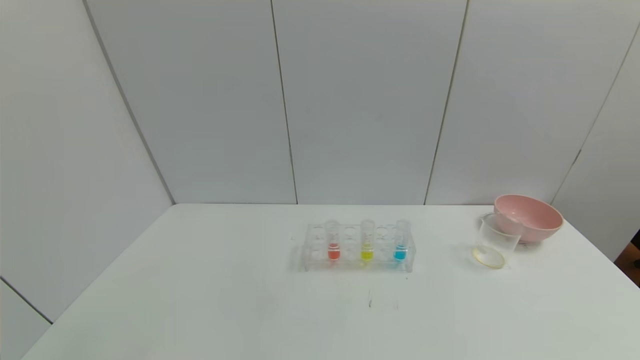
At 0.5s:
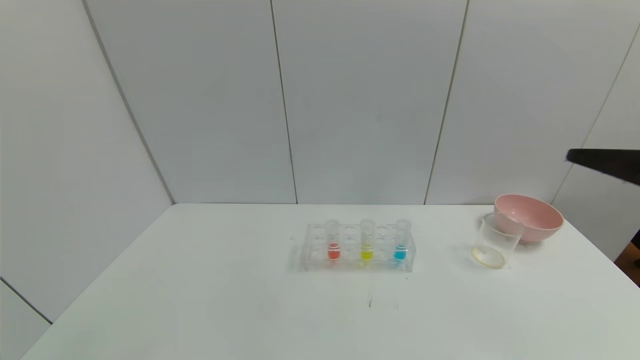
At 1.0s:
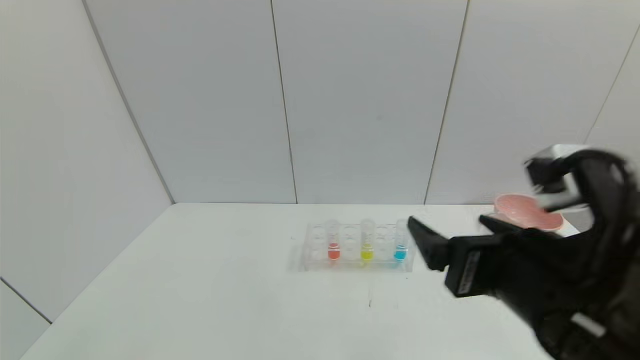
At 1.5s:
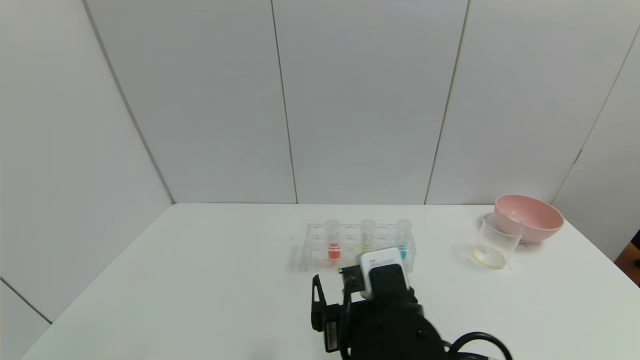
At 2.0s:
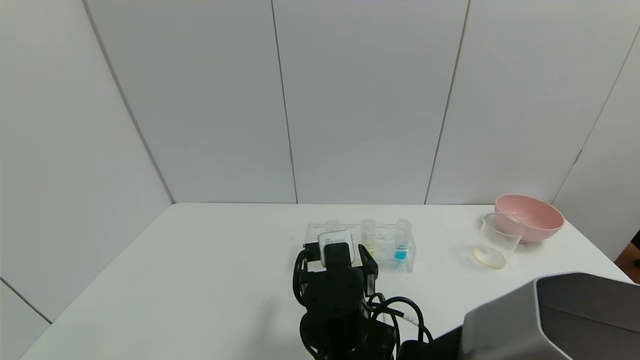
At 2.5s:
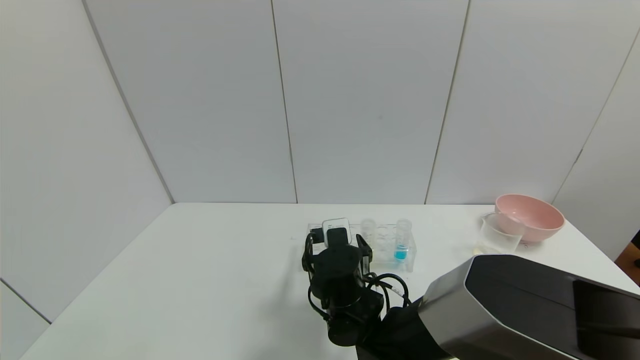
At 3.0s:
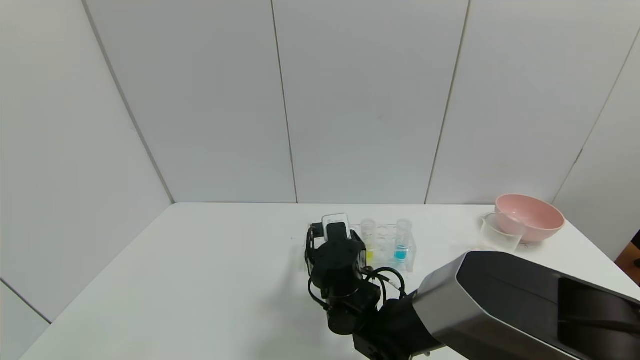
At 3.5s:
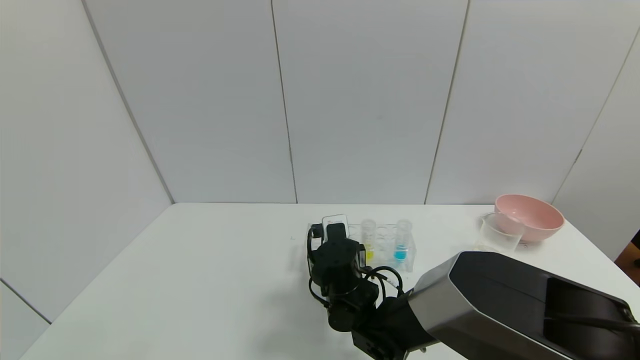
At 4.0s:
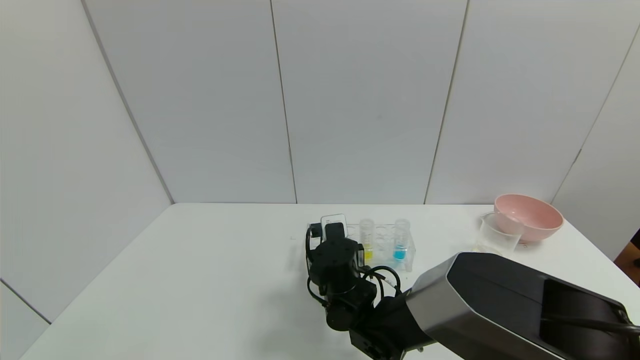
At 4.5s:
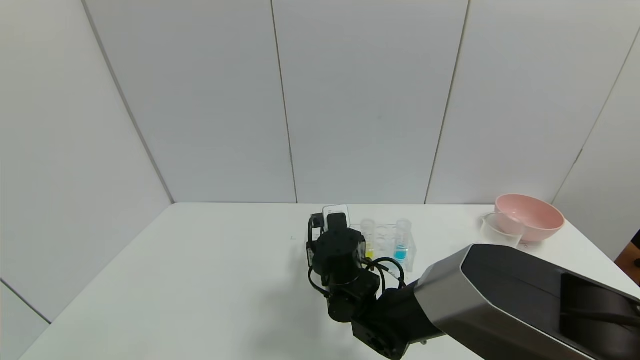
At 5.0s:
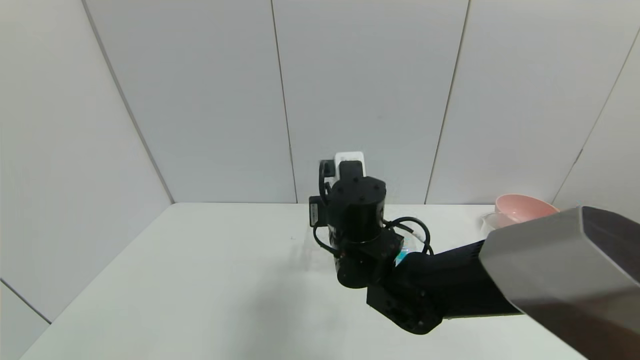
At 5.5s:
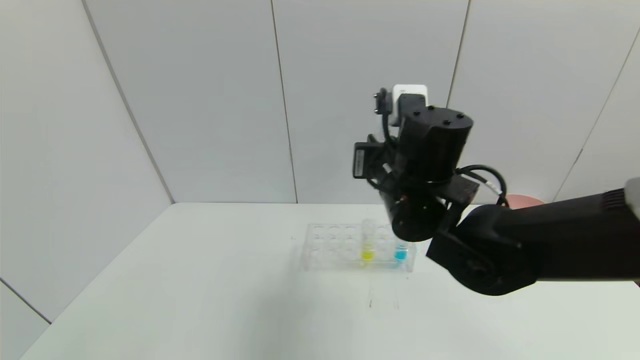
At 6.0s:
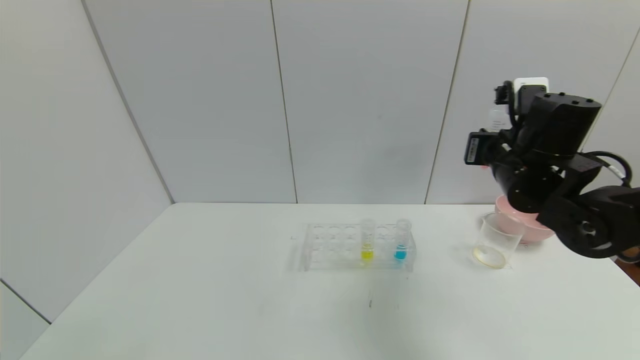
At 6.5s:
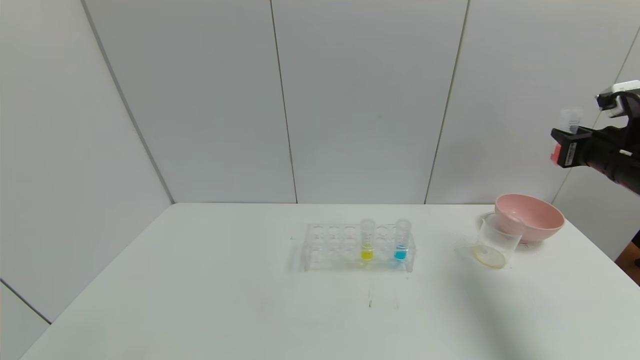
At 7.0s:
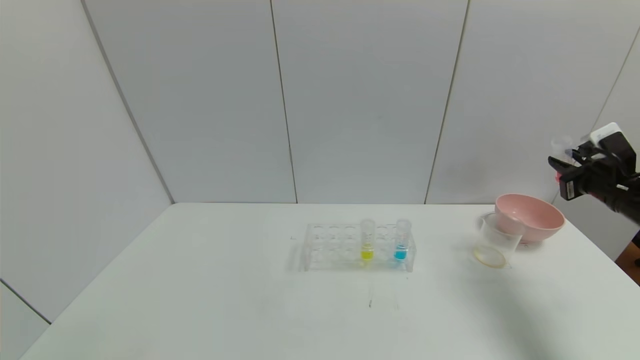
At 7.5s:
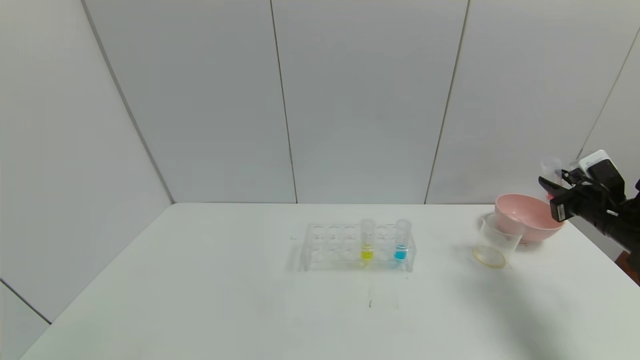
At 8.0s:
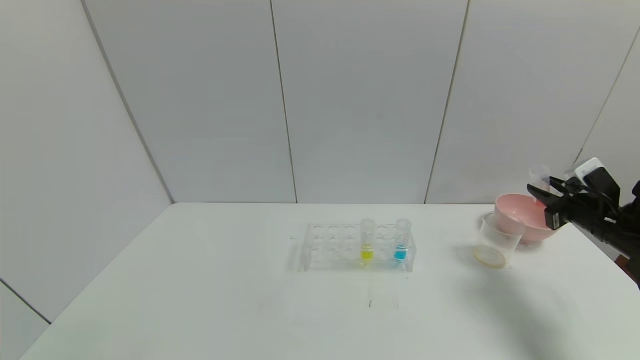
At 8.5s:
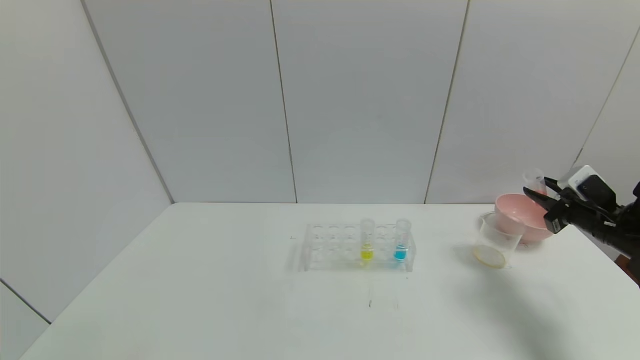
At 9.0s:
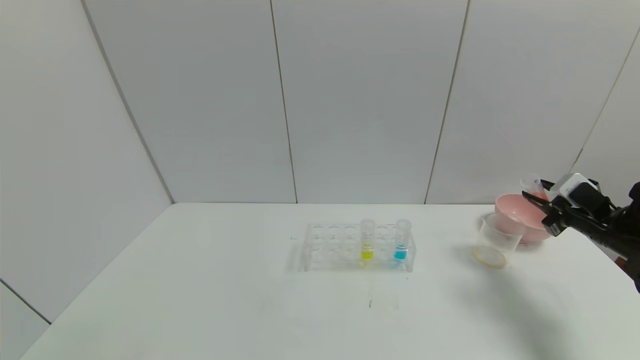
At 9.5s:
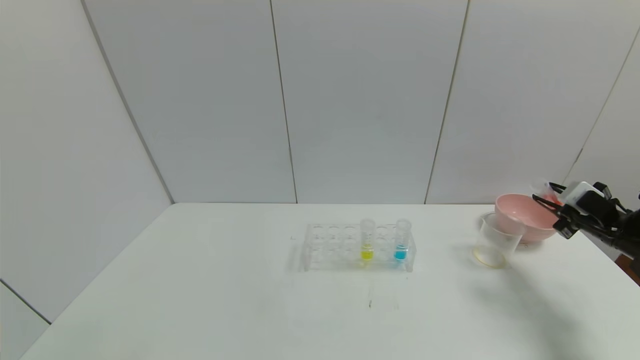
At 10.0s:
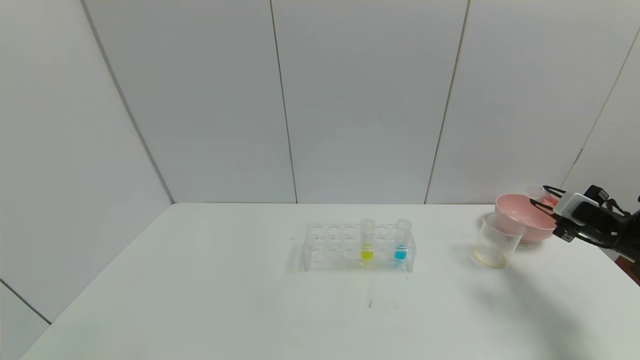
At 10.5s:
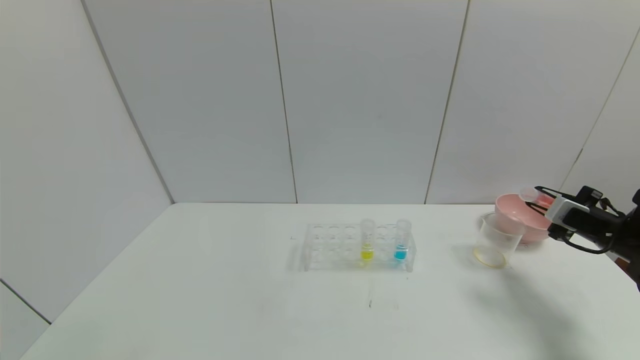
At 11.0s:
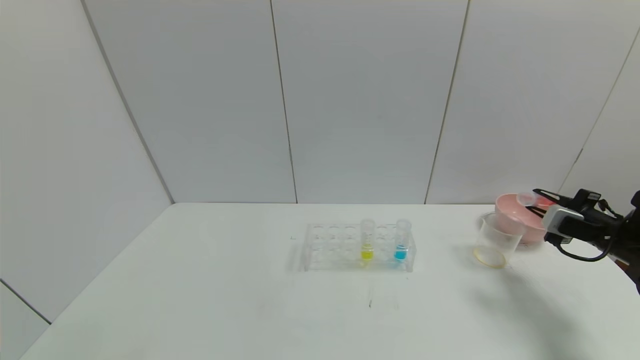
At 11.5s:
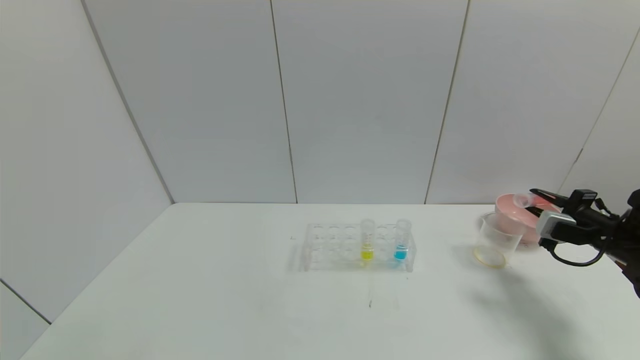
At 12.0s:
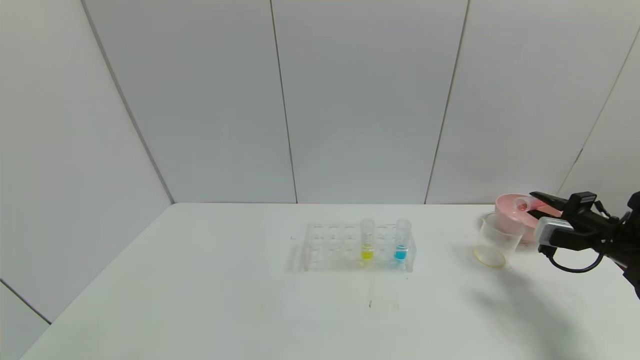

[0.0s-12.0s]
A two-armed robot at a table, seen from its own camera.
Task of the whole recording: pick up the test tube with yellow pigment and the test tube with red pigment by grippers and pour them into the beaker.
Step, 0.0s to 3.0s: Grasp the red reagent with the right gripper.
0.0s to 2.0s: The right gripper shifts approximately 50 cm to the left, downward and forward.
2.0s to 4.0s: The right gripper goes approximately 10 cm forward, and closes up.
4.0s to 6.0s: The right gripper moves to the right and upward, about 30 cm.
6.0s to 8.0s: The right gripper moves to the right and downward, some 20 cm.

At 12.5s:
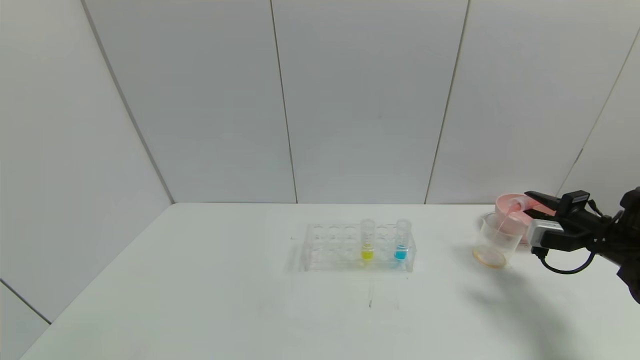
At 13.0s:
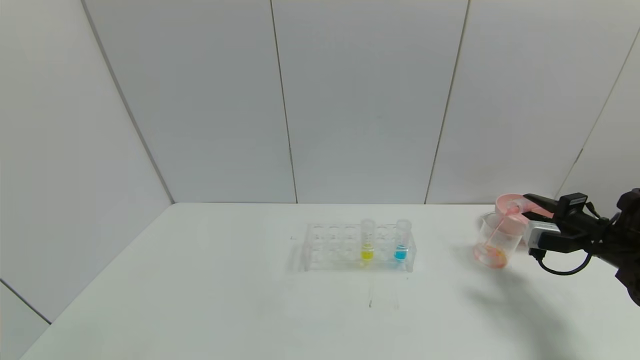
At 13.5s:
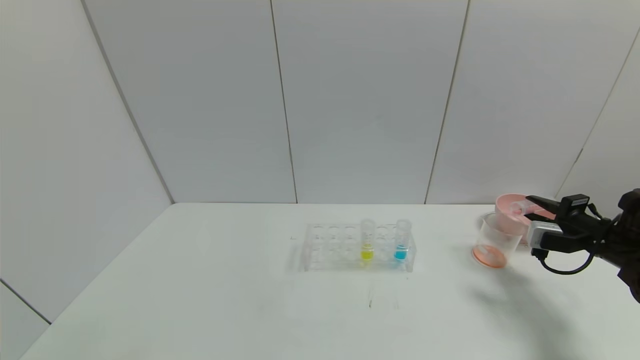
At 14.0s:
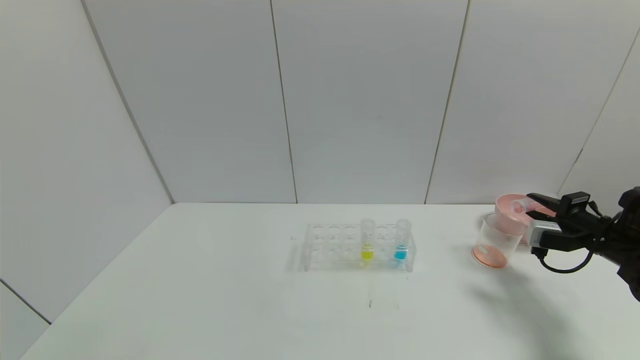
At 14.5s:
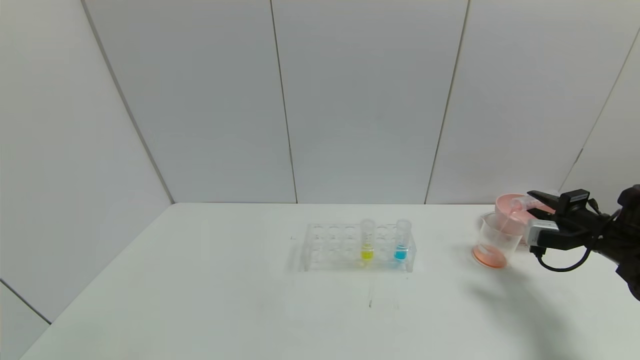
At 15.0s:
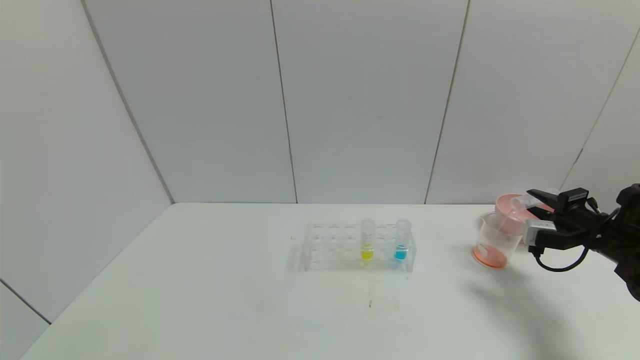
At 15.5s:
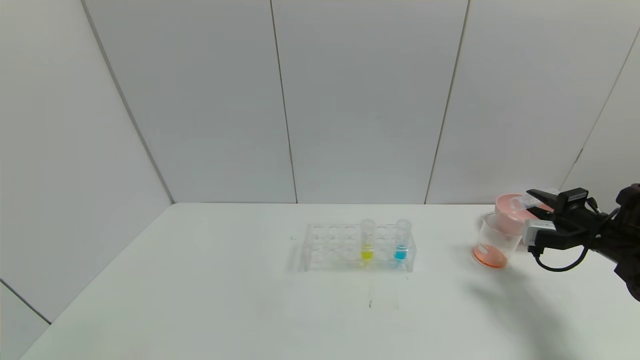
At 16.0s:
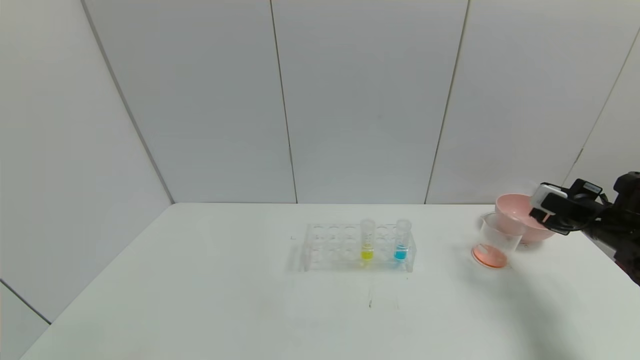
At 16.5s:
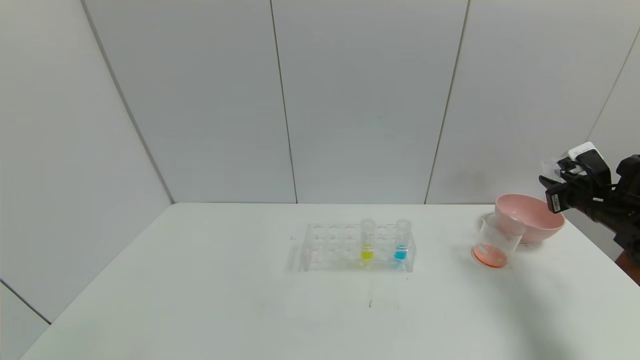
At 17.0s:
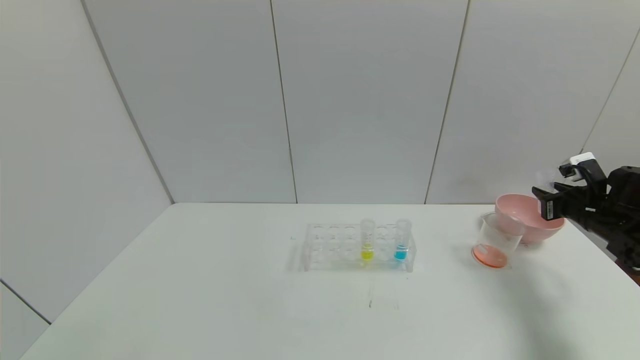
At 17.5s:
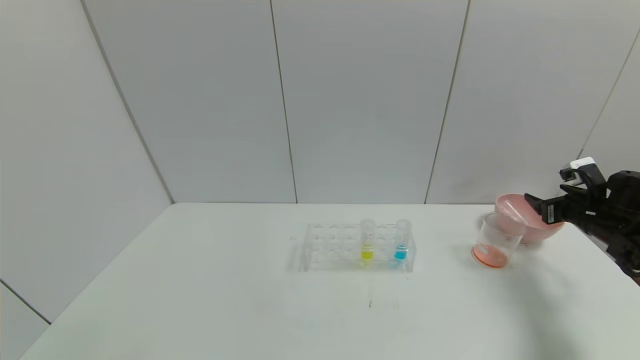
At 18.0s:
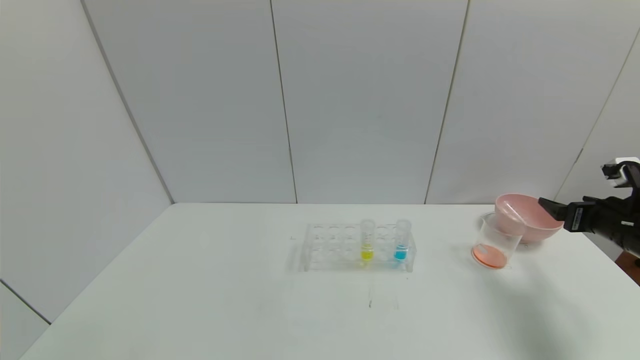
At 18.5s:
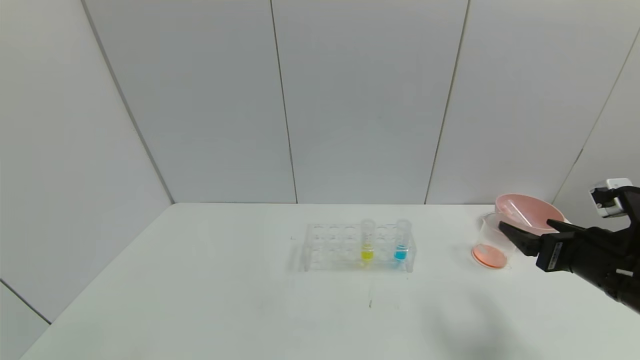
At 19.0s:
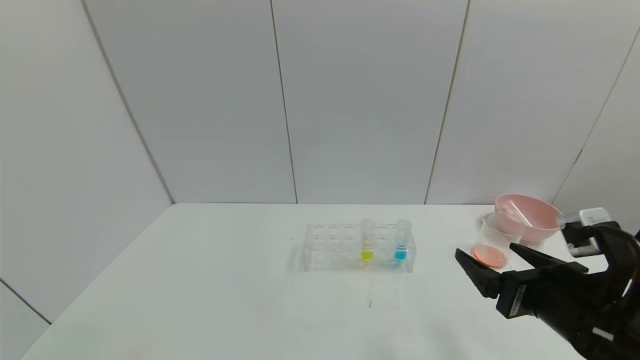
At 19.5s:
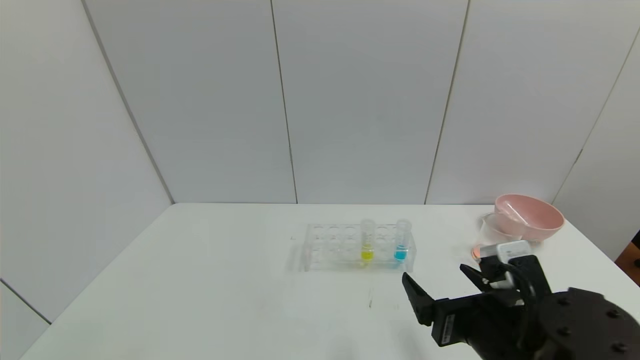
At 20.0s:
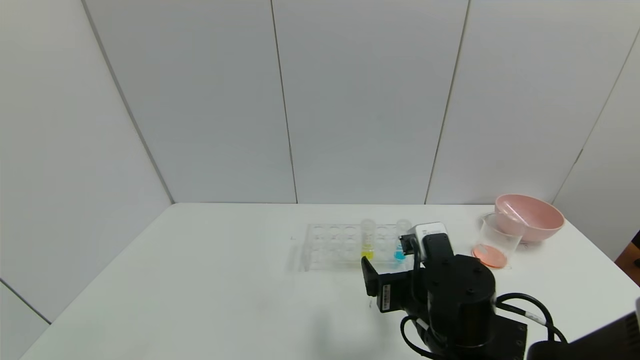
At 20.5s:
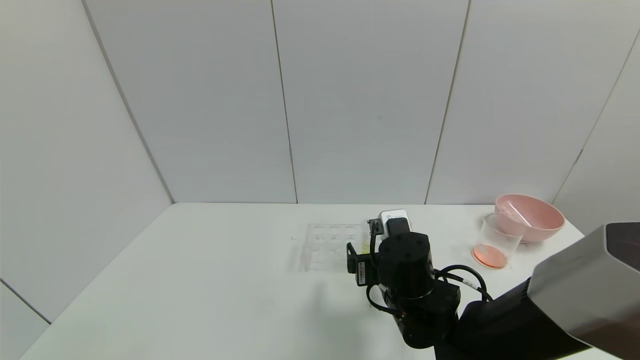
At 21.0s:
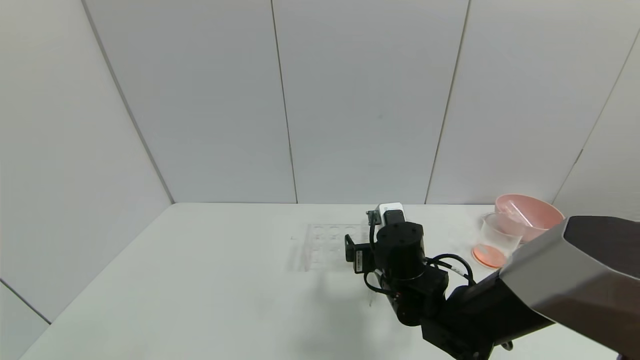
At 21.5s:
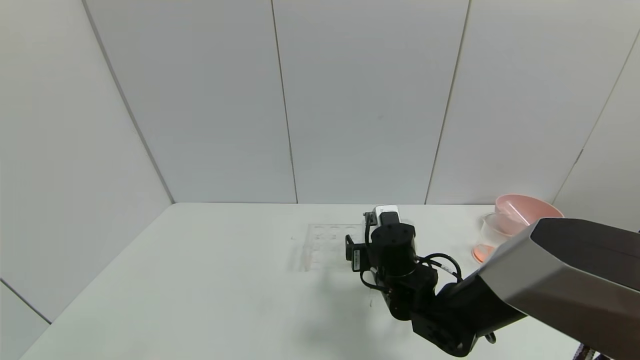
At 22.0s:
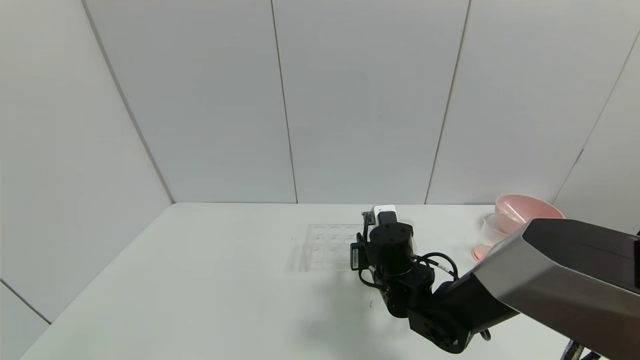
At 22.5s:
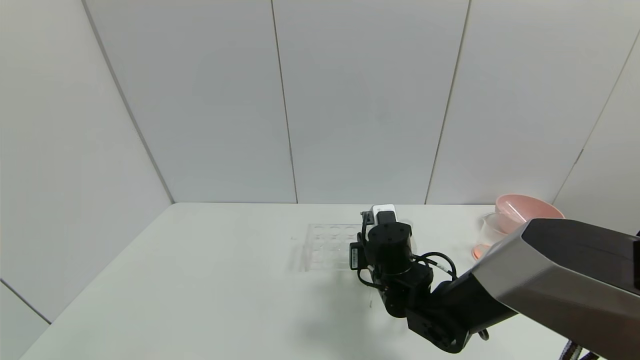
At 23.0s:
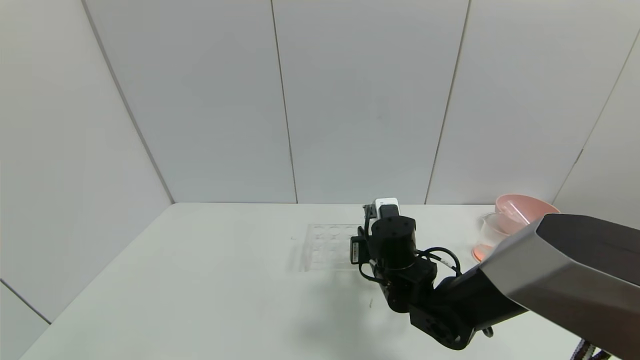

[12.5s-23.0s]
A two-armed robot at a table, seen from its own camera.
Task of the whole recording: pick up the test tube with yellow pigment and the test tube with red pigment by grippers and pour them into the beaker.
Step, 12.5s to 15.0s: Pour the red reagent into the graduated cylinder with the right gripper.
Step, 15.5s to 17.0s: Place the test tube into the bowl with the right gripper.
Step, 17.5s to 22.0s: Grasp the yellow reagent with the right gripper.
12.5s to 14.5s: There are only small adjustments of the grippers.
16.5s to 19.0s: The right gripper shifts roughly 30 cm to the left and backward, and opens its fingers.
19.0s to 21.0s: The right gripper is displaced to the left, forward and downward by about 20 cm.
21.0s to 23.0s: The right gripper closes its fingers.
